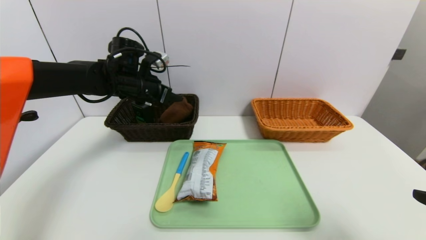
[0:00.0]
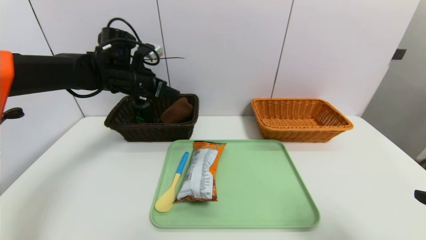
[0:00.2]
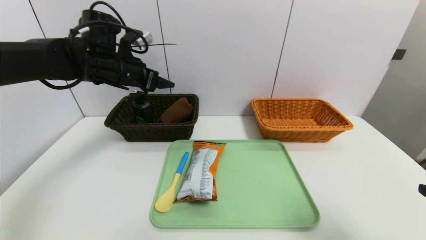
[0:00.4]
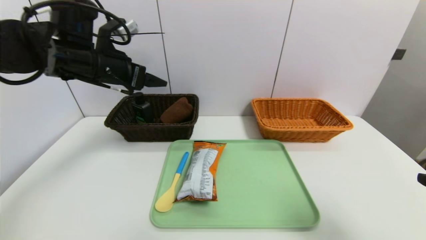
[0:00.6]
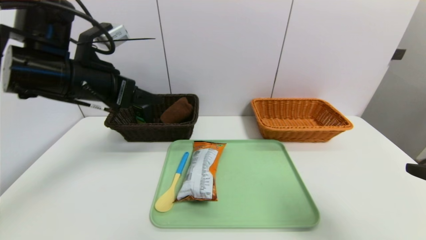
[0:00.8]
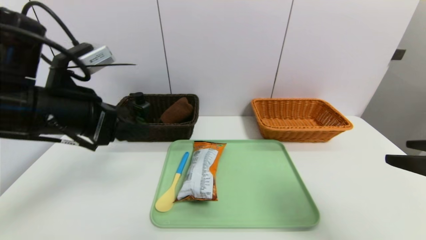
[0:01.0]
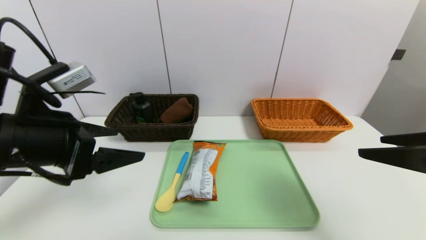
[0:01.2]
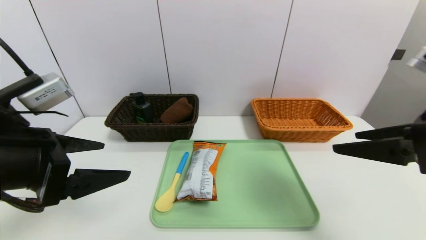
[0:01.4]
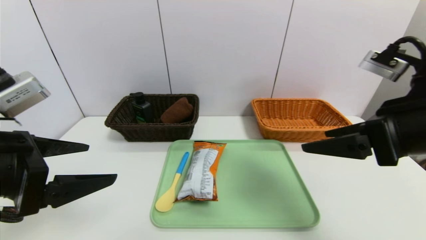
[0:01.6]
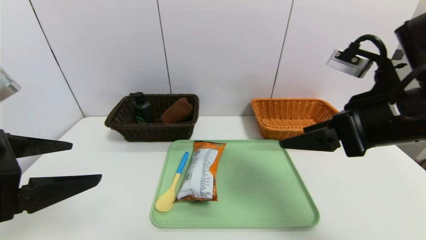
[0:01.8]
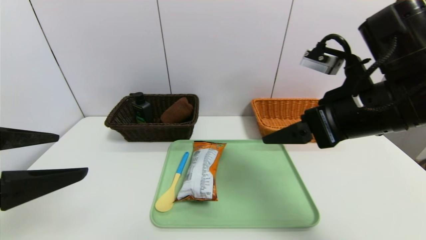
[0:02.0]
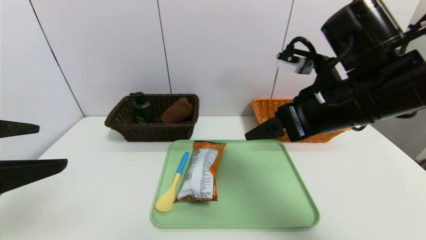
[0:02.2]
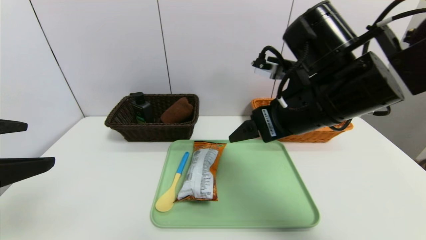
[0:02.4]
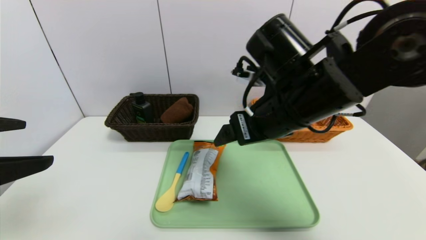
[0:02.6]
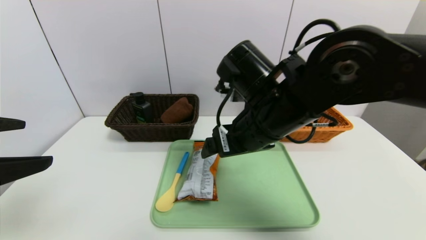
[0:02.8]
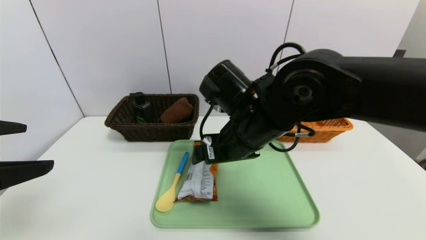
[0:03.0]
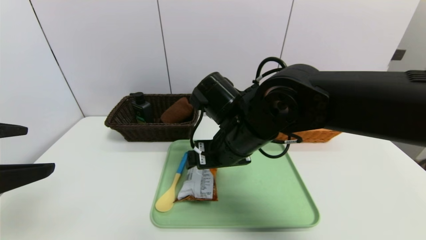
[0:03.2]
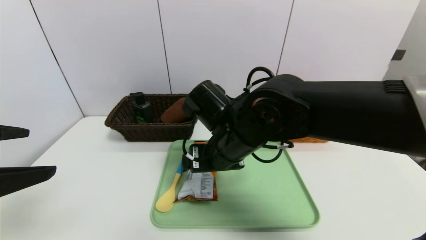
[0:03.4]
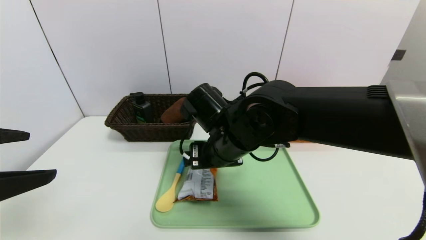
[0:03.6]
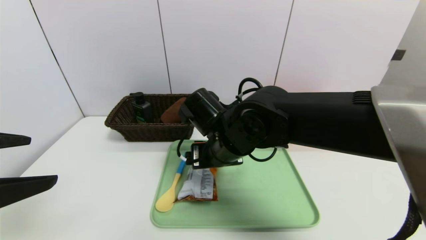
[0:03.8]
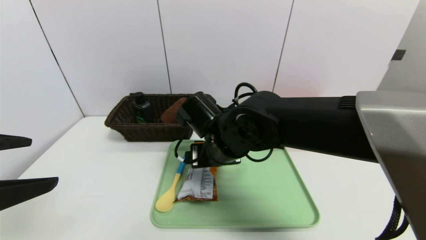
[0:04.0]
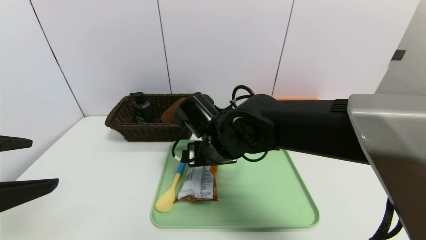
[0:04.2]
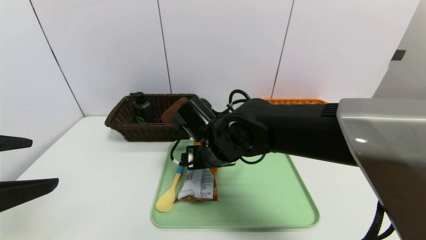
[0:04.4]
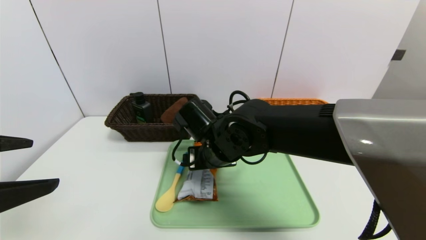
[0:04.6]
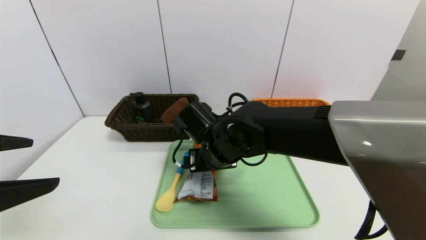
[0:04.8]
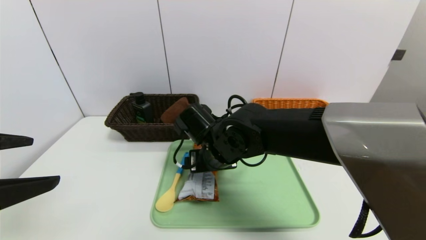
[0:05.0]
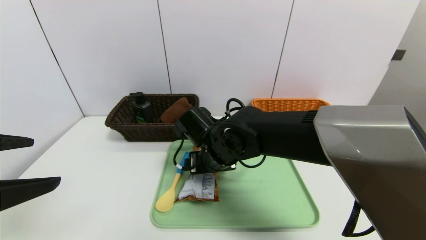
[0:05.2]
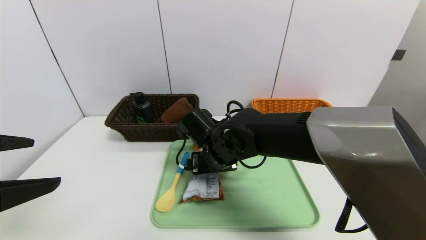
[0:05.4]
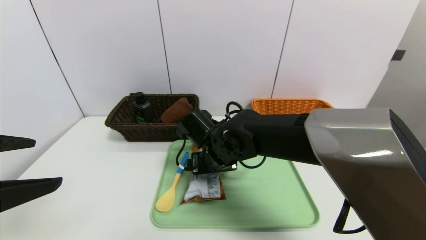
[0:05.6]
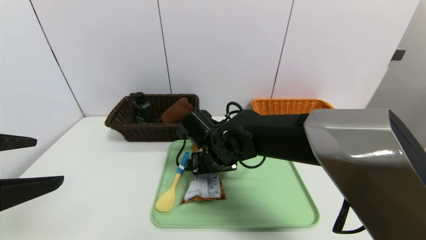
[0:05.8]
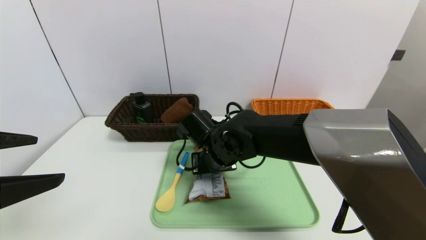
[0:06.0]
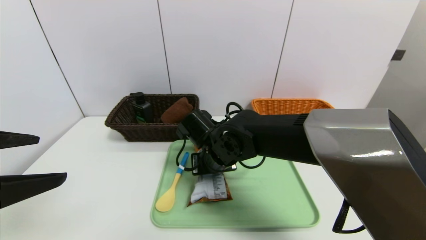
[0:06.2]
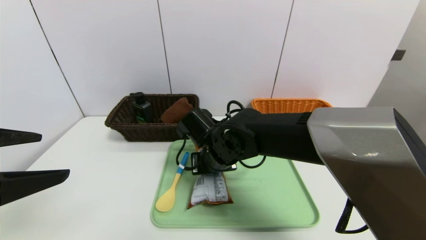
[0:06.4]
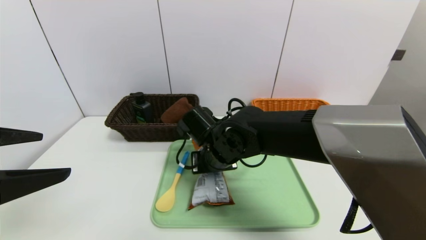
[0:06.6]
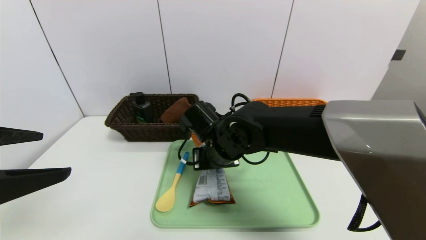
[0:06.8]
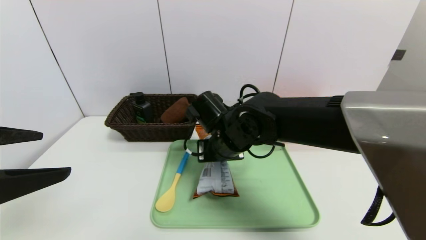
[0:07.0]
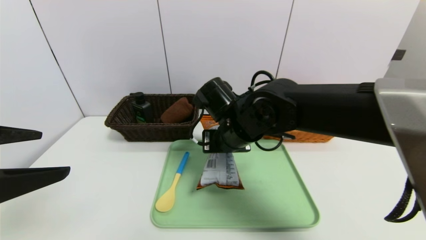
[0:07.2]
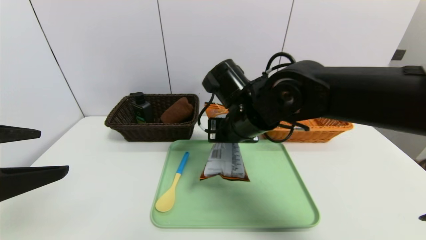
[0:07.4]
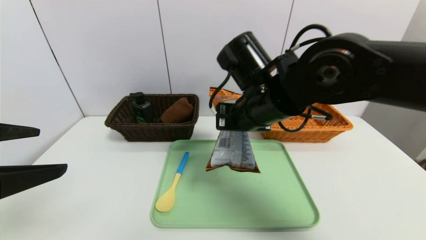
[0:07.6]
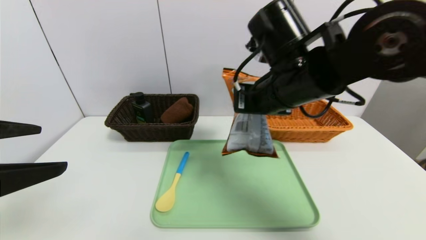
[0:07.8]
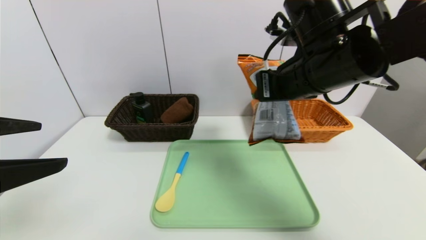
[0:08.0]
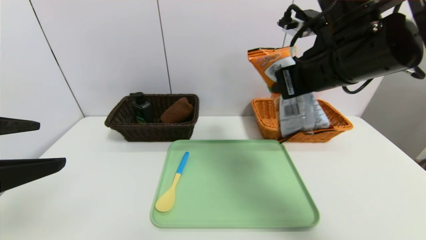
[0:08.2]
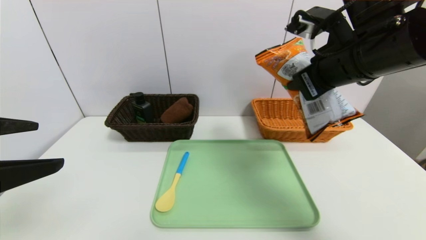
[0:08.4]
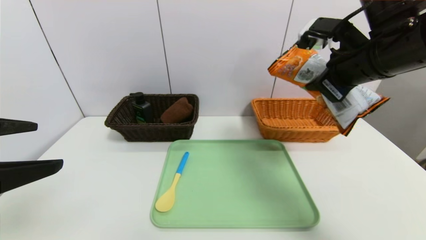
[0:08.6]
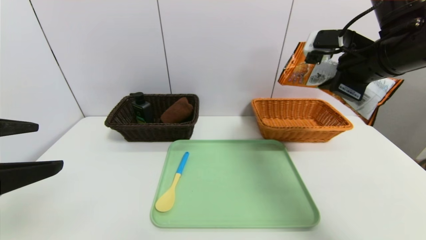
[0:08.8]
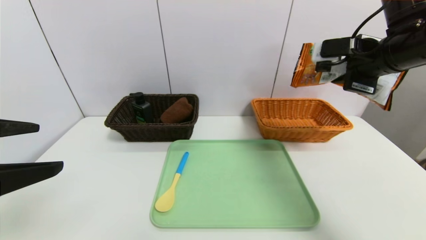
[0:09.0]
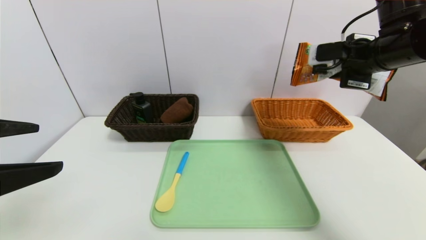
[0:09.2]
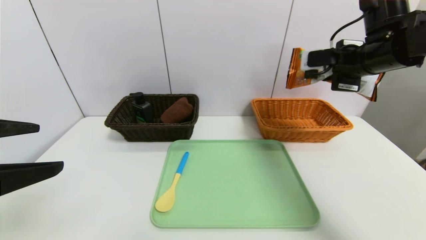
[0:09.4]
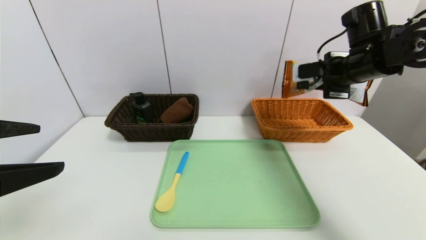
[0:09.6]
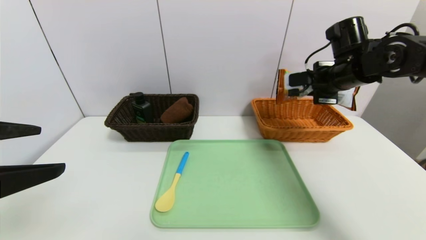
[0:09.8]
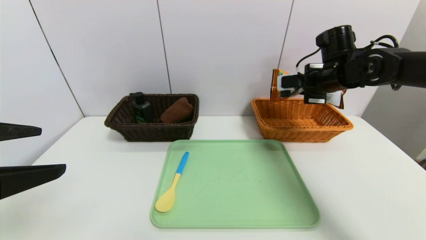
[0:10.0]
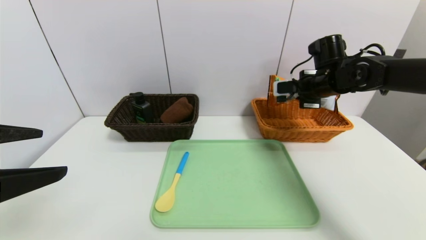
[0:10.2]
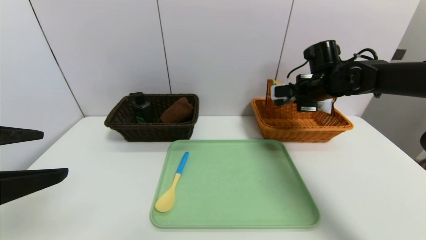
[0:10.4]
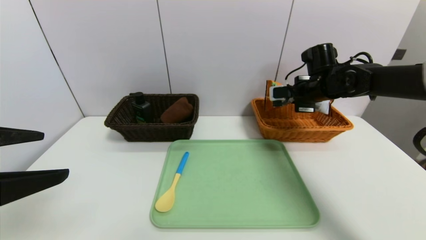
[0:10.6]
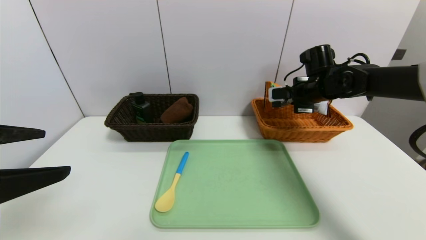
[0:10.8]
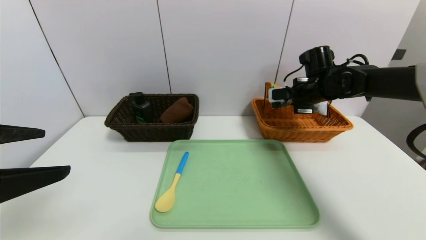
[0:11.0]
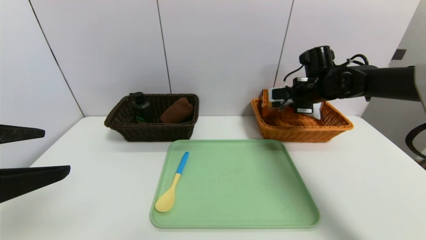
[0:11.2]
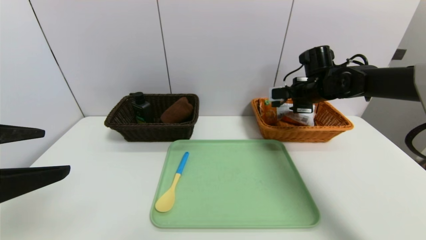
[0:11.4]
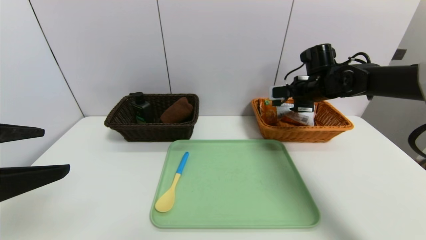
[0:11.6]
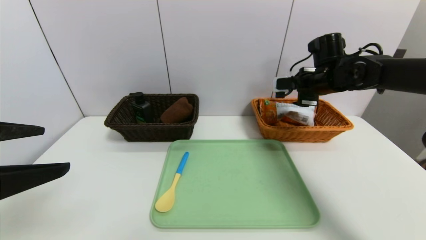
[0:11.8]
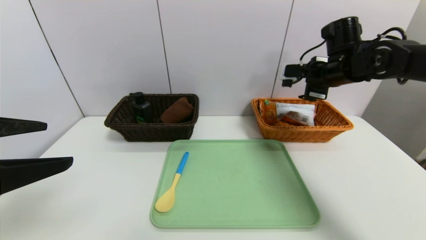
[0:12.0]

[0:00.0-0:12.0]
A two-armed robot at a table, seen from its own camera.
Task of the whole recording: place the food in the right basket with the right gripper, and place the non food items in the left basket with the left gripper.
Step, 0:00.2 to 0:11.8: Place the cookie in the center of the table.
0:00.0 to 0:01.6: The left gripper goes some 30 cm backward. Meanwhile the right gripper shifts approximately 15 cm forward and to the left.
0:01.6 to 0:03.0: The right gripper is displaced to the left by approximately 20 cm. Meanwhile the left gripper heads upward, covering some 5 cm.
0:03.0 to 0:04.4: The right gripper is displaced downward by approximately 5 cm.
0:04.4 to 0:06.0: The right gripper closes its fingers.
0:06.0 to 0:07.6: The right gripper heads upward and to the right, covering about 15 cm, and closes.
0:07.6 to 0:09.0: The right gripper shifts some 20 cm to the right.
0:09.0 to 0:10.4: The right gripper goes roughly 15 cm forward and downward.
0:10.4 to 0:12.0: The right gripper ends up roughly 5 cm from where it was, and opens its fingers.

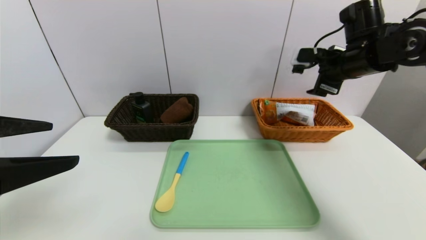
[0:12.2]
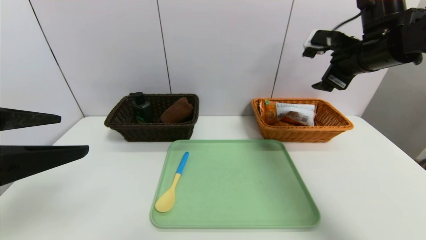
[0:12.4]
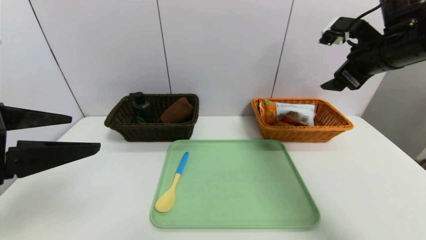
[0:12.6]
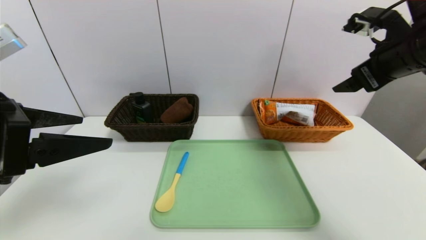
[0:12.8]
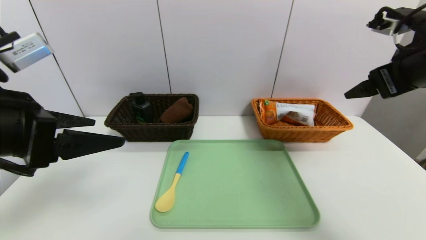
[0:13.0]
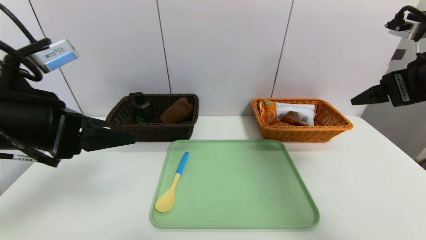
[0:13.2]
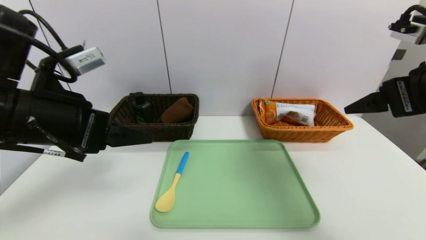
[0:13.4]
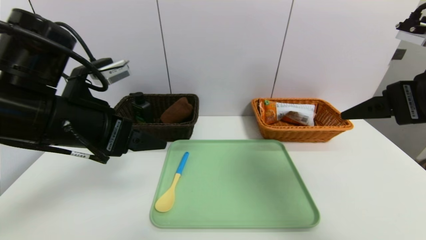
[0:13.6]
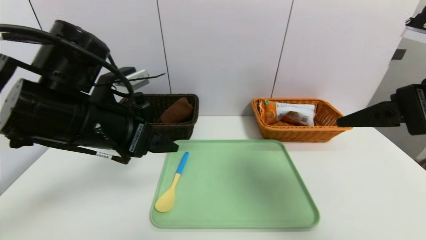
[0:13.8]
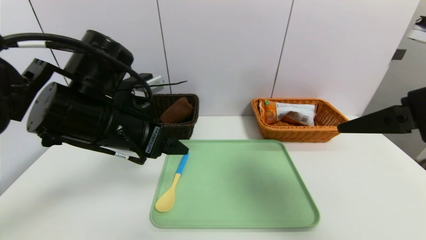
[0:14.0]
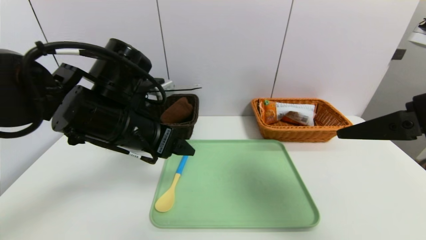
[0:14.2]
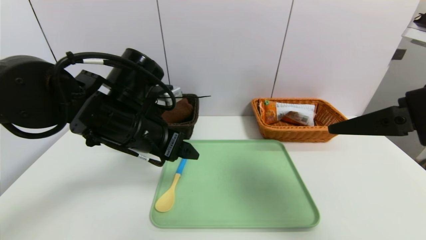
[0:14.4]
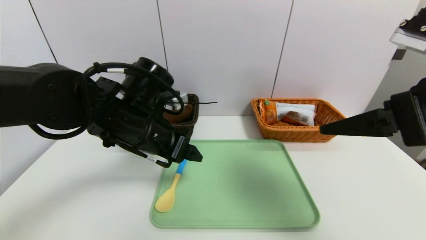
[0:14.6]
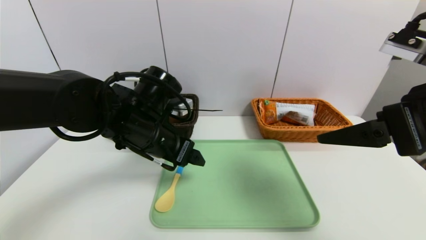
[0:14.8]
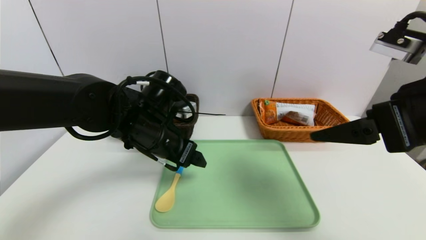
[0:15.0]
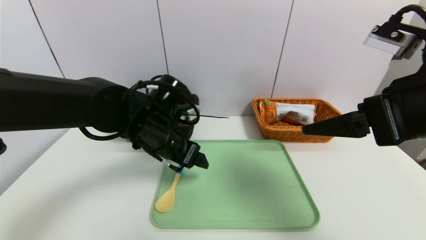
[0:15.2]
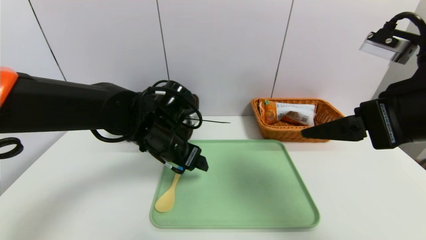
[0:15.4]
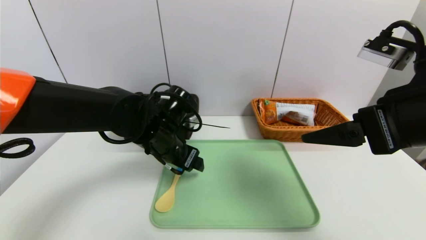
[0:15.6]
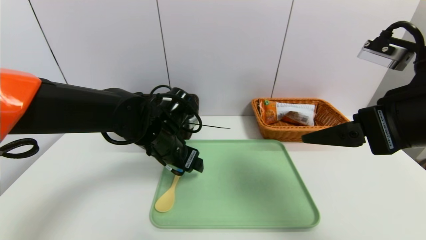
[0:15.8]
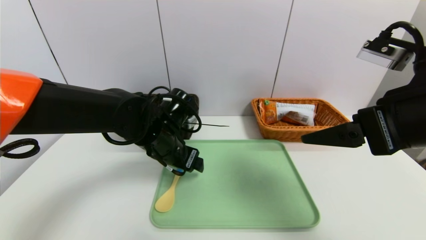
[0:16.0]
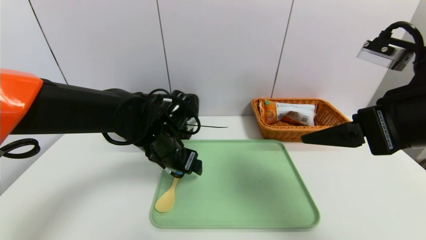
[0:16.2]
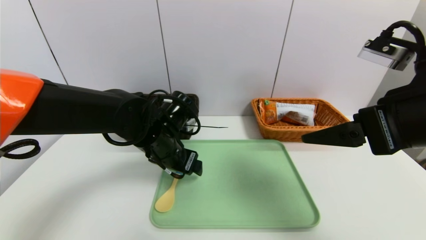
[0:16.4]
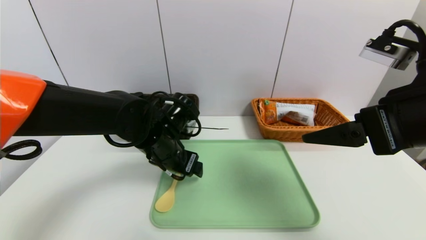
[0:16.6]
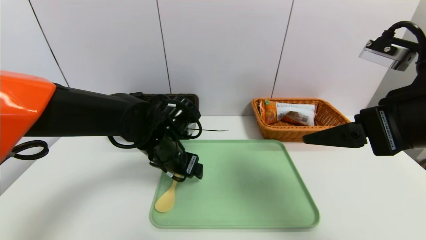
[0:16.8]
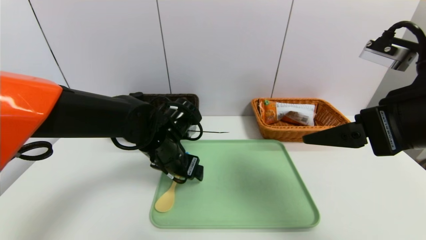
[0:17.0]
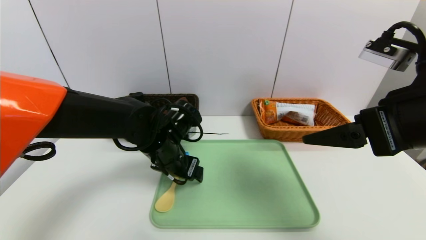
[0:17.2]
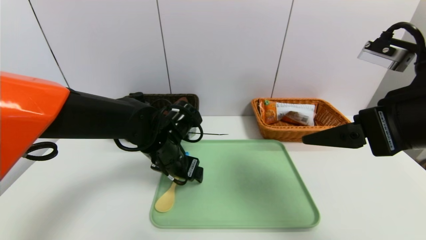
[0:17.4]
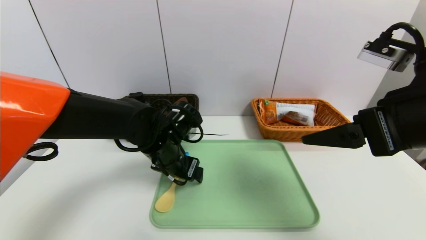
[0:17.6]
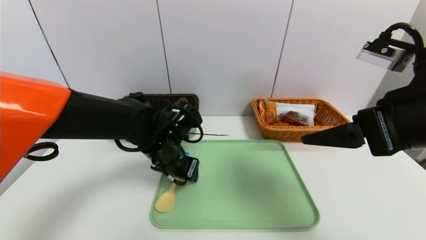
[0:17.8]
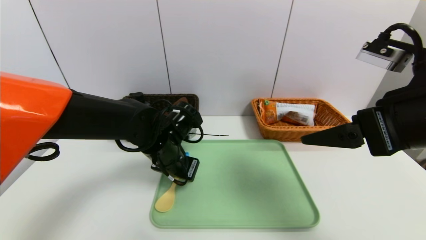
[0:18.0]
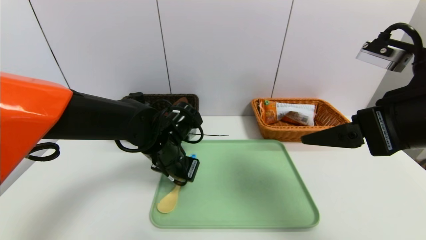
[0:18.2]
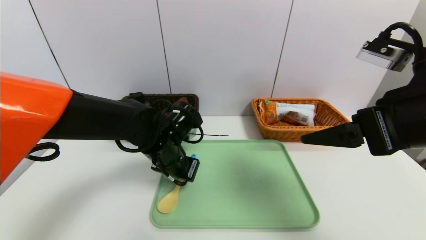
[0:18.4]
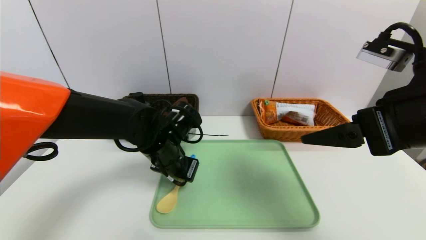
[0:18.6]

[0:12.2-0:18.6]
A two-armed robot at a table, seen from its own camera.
Task of the whole recording: place the food in the right basket with the right gripper, and place the non food items in the left basket with the left gripper.
0:12.2 to 0:13.8: The left gripper goes roughly 15 cm forward and to the right. The right gripper shifts about 20 cm backward.
0:13.8 to 0:15.4: The left gripper is displaced downward, forward and to the right by roughly 15 cm.
0:15.4 to 0:17.0: The grippers move only a little.
0:17.0 to 0:18.6: The left gripper closes.
